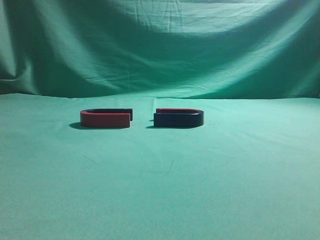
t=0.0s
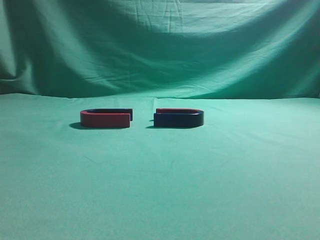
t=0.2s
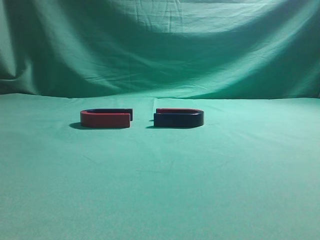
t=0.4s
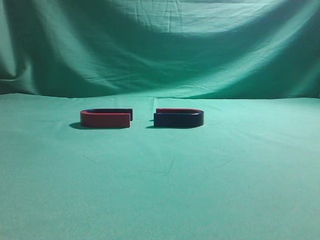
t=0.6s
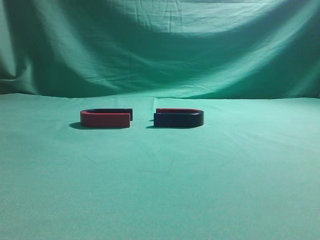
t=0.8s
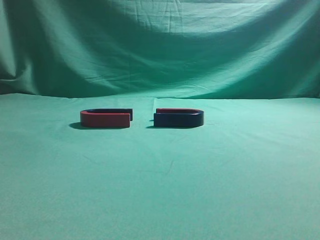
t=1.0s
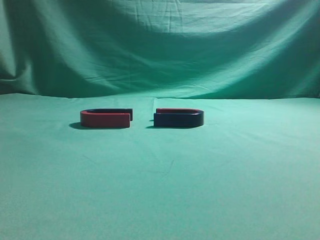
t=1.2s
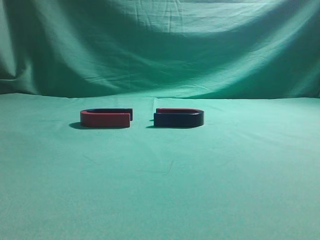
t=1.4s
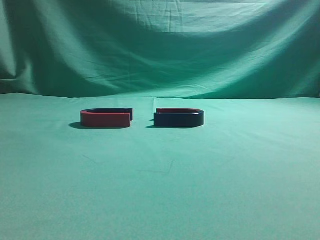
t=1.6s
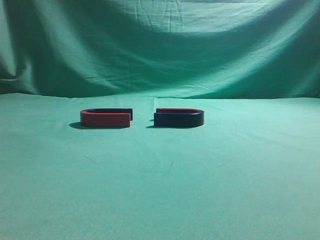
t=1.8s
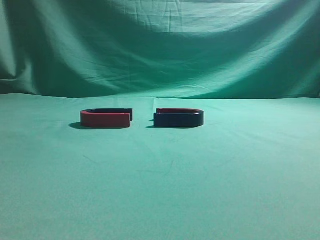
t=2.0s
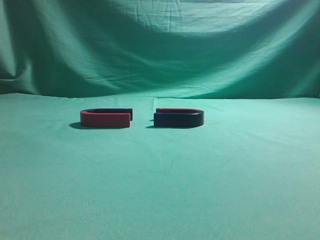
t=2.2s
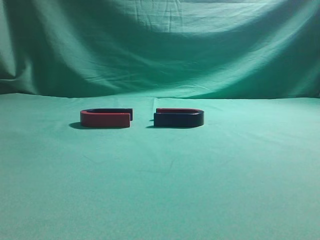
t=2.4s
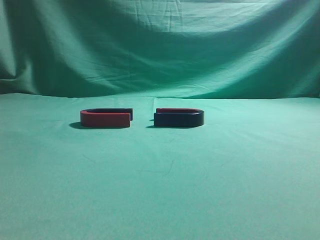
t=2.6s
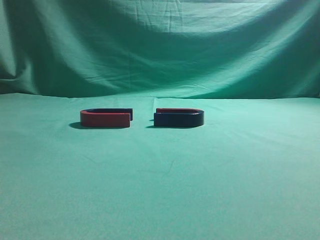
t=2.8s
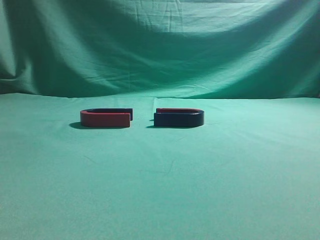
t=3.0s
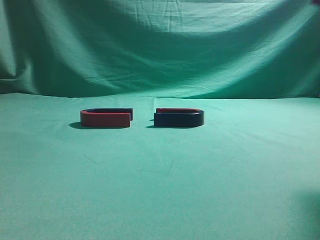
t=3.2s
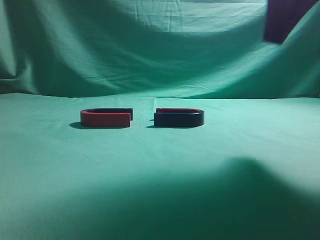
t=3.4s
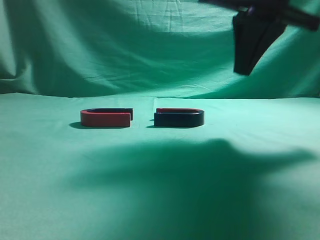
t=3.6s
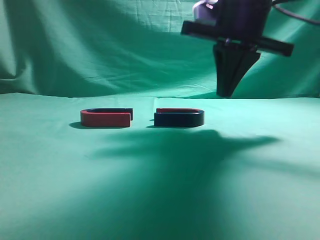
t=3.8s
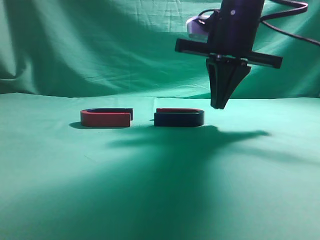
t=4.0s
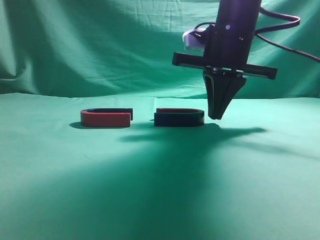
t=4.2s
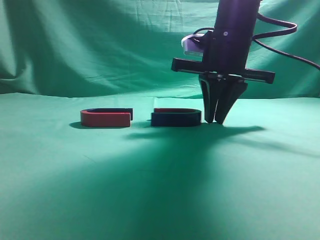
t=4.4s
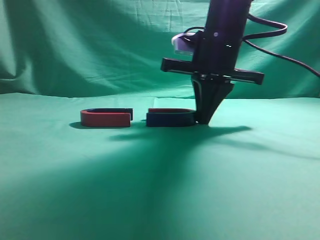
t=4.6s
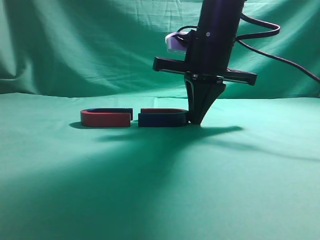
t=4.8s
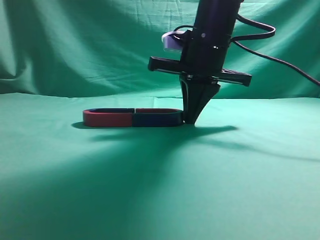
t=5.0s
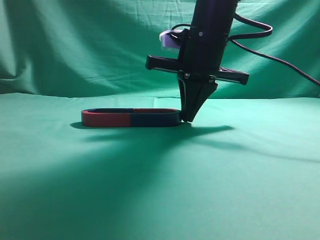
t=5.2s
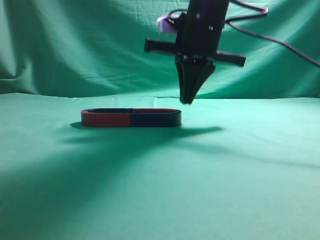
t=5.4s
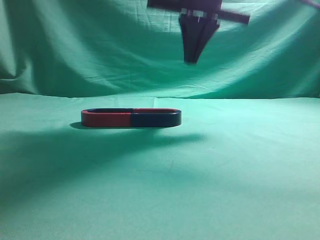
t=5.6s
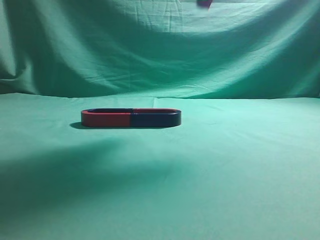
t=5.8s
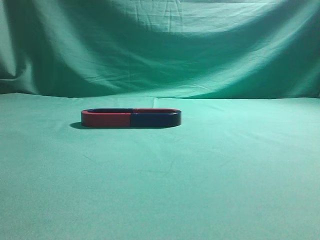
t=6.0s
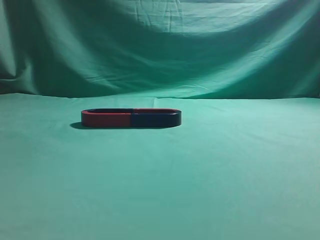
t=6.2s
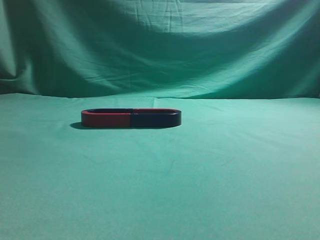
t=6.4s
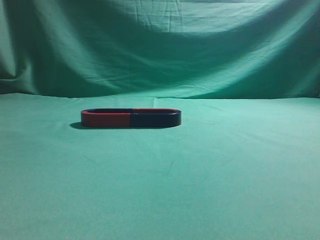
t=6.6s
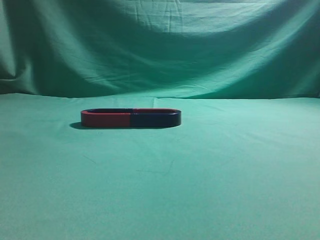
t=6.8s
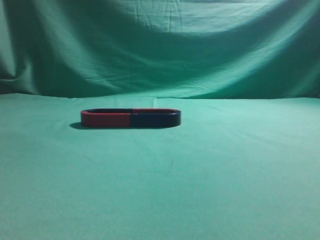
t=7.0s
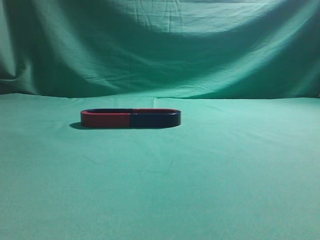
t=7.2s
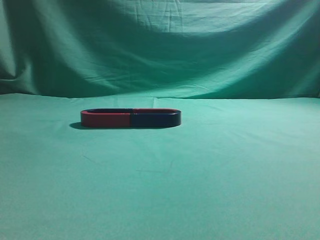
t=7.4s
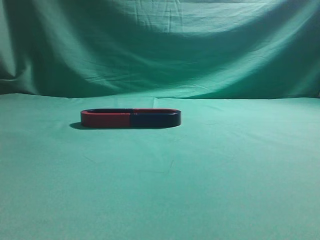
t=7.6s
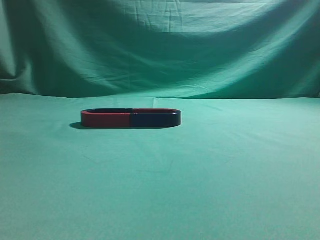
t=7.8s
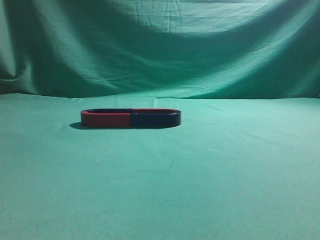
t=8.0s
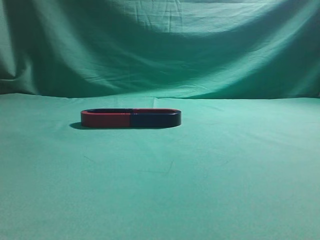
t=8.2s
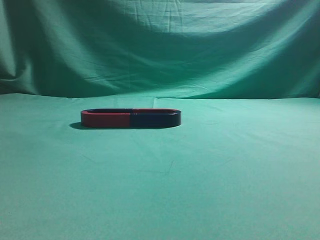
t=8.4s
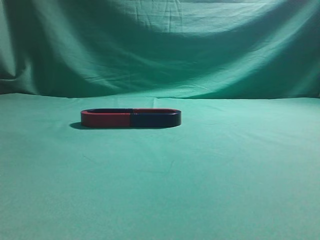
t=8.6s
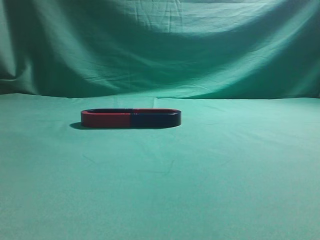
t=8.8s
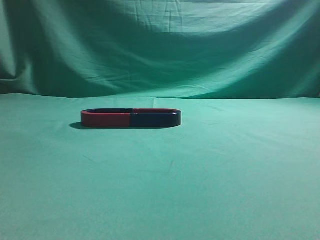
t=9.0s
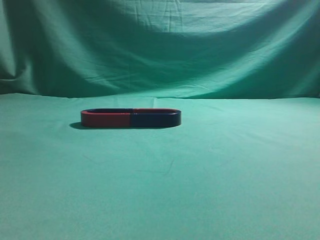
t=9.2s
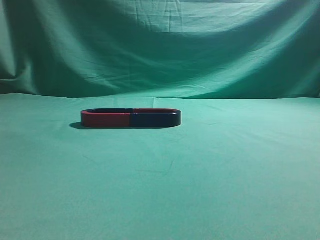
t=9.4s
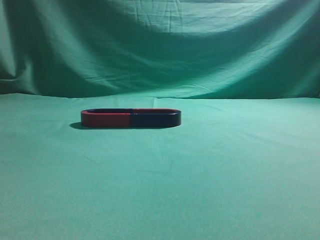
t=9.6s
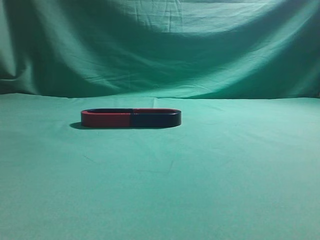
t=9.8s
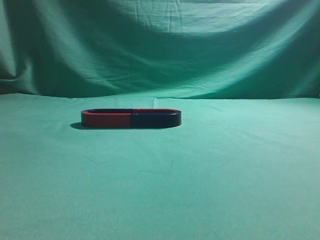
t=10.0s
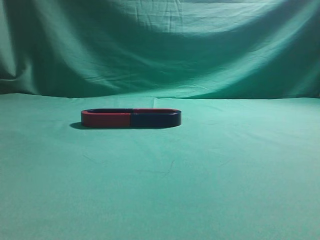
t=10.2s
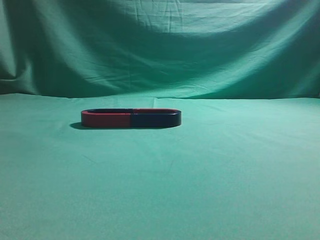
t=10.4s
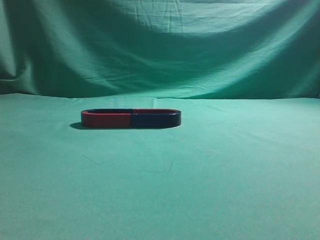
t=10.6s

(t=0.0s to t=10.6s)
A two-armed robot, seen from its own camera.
Task of the whole recording: push the magnet on the table from its original position to another position.
Step, t=0.0s - t=5.2s: Push the magnet on the right to connect the magnet on the left.
t=3.0s - t=4.6s: The right gripper shifts roughly 25 cm forward, downward and to the left.
t=4.6s - t=6.0s: The right gripper travels upward by about 30 cm.
t=6.0s - t=7.6s: The right gripper moves backward and to the right, about 35 cm.
t=9.0s - t=10.6s: Neither gripper changes place.
